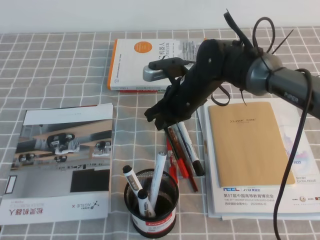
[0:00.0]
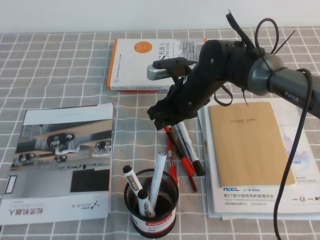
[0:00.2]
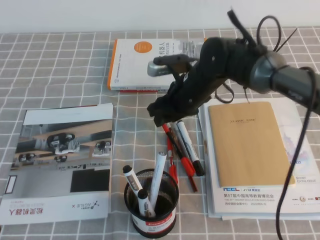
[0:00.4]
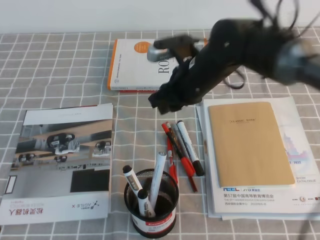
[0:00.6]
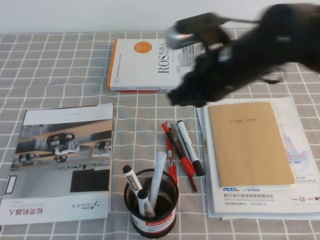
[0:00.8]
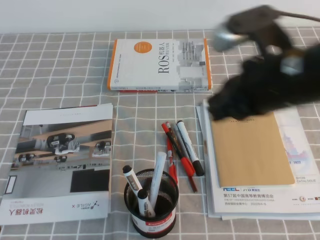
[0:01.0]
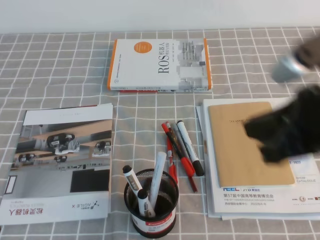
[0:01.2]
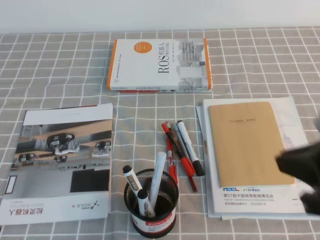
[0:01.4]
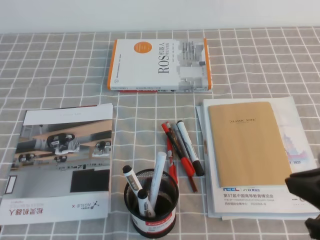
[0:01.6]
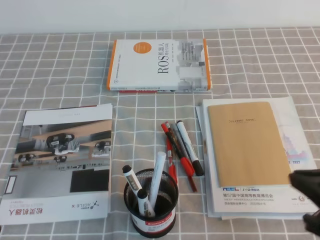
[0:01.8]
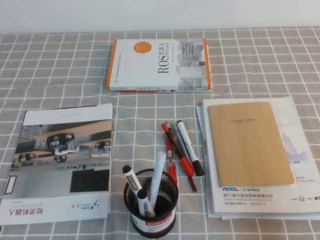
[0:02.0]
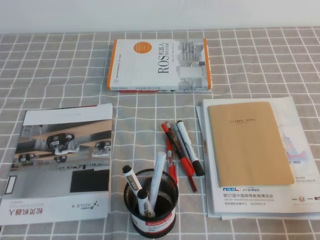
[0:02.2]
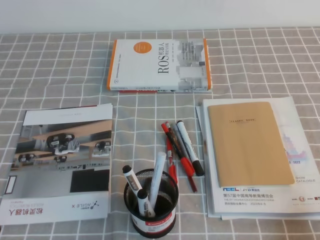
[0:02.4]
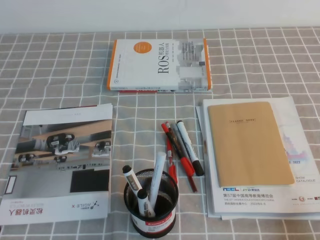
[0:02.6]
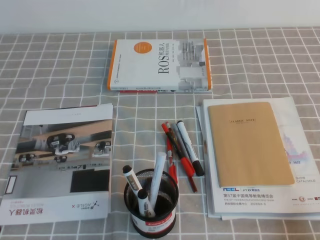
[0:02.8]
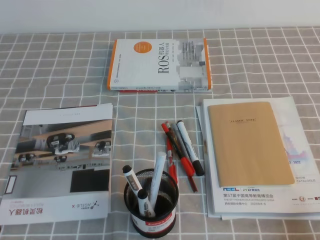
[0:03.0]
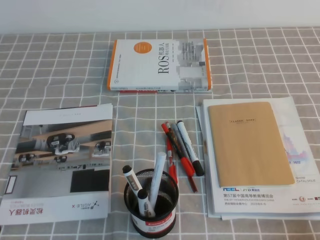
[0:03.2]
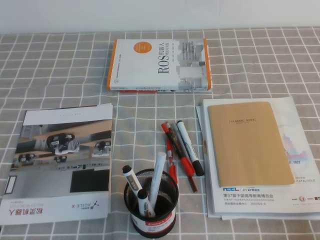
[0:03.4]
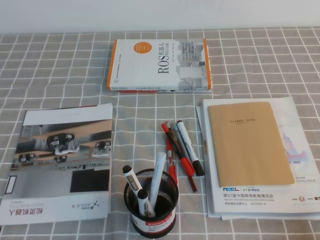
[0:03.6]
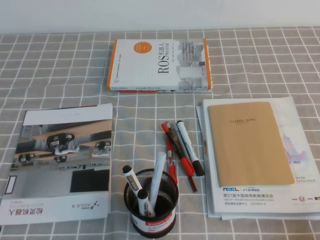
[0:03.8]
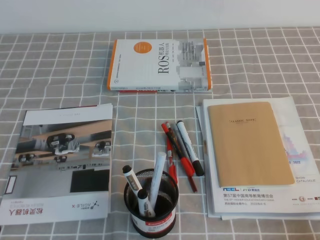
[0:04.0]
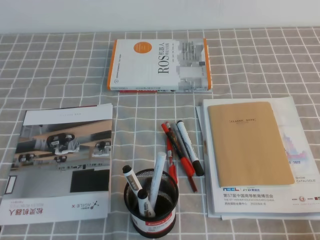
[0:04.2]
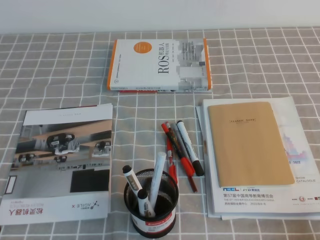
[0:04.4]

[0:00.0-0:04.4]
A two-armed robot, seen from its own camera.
Step, 0:00.0 to 0:04.4: Pick up the pen from the pen holder.
0:00.0 to 0:01.4: The right gripper is displaced backward, to the right and upward by some 35 cm, and opens and closes again.
0:01.4 to 0:03.0: The right gripper heads downward, to the right and backward, covering approximately 20 cm.

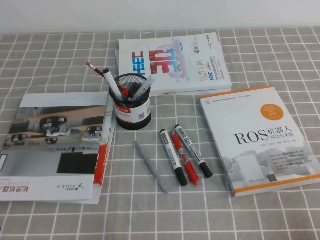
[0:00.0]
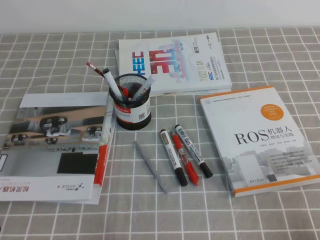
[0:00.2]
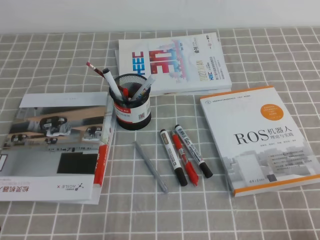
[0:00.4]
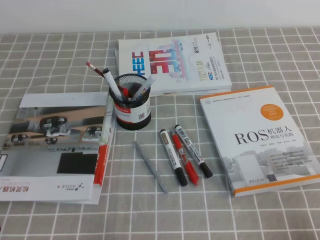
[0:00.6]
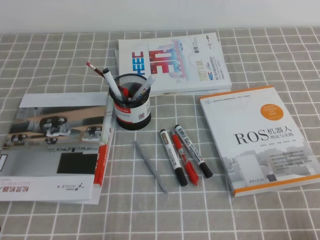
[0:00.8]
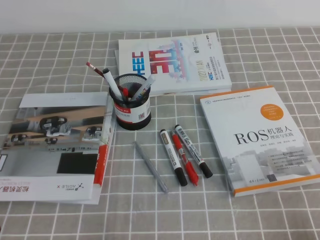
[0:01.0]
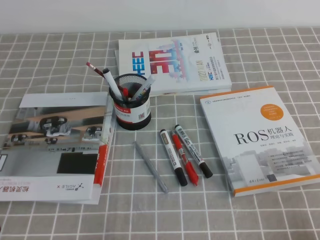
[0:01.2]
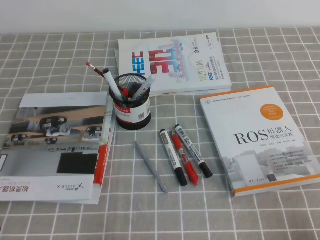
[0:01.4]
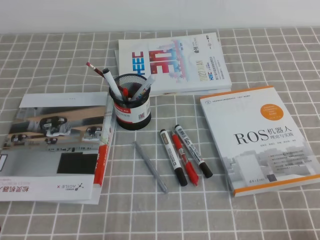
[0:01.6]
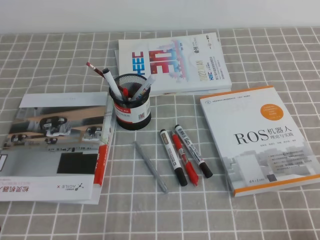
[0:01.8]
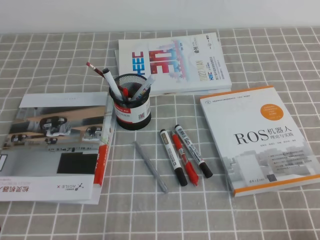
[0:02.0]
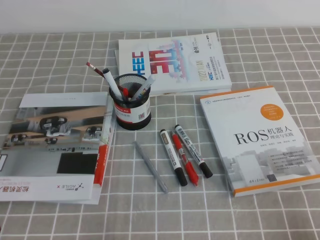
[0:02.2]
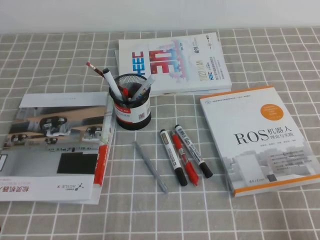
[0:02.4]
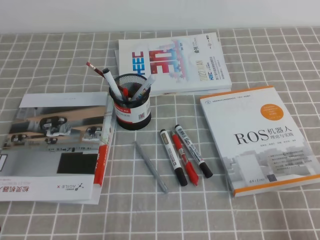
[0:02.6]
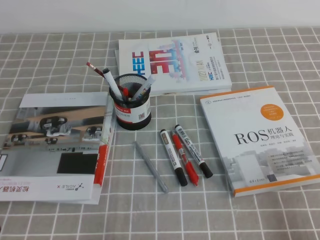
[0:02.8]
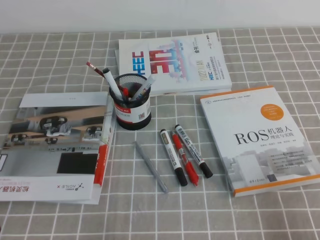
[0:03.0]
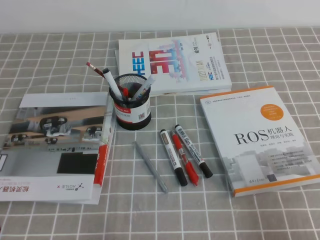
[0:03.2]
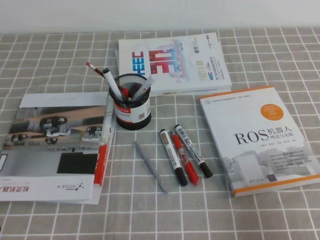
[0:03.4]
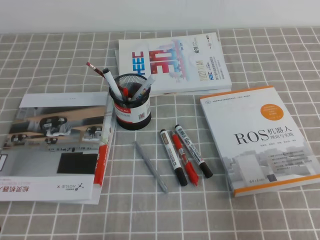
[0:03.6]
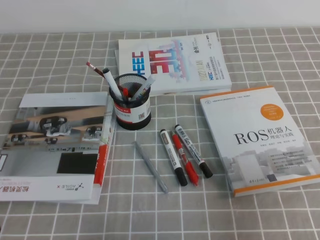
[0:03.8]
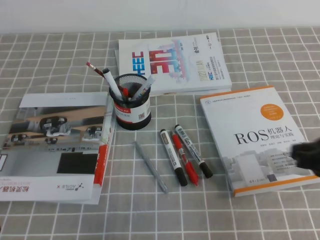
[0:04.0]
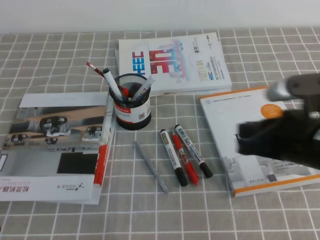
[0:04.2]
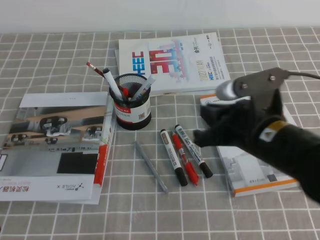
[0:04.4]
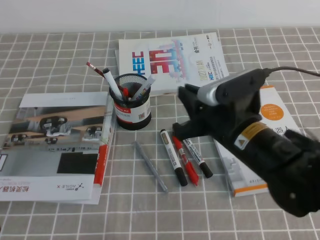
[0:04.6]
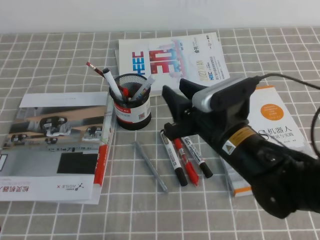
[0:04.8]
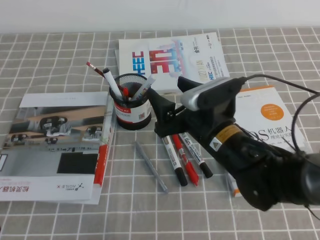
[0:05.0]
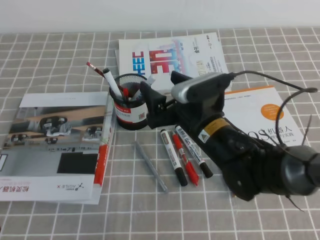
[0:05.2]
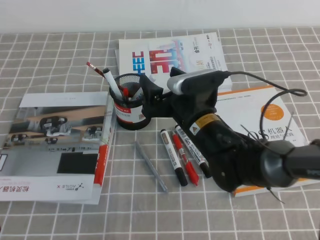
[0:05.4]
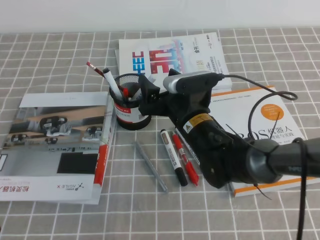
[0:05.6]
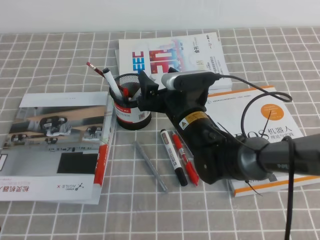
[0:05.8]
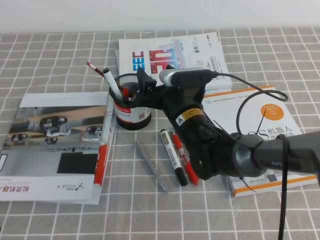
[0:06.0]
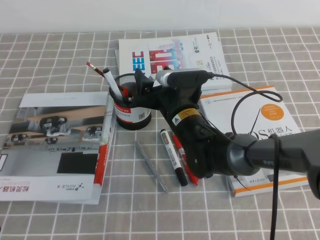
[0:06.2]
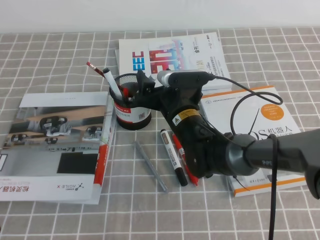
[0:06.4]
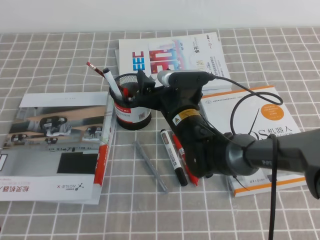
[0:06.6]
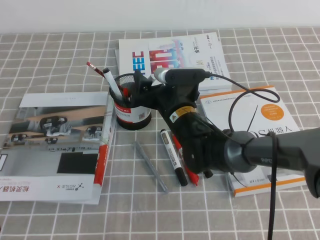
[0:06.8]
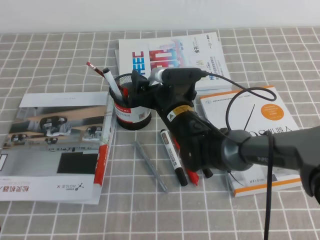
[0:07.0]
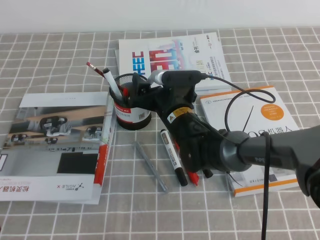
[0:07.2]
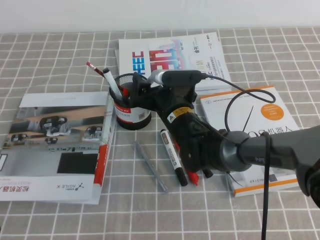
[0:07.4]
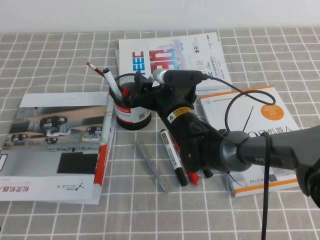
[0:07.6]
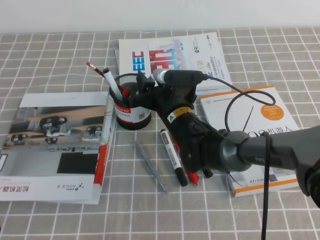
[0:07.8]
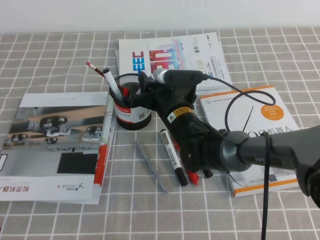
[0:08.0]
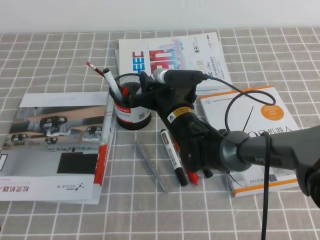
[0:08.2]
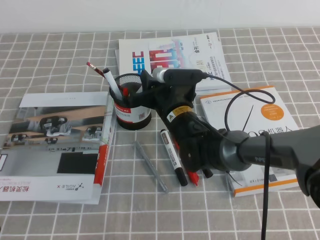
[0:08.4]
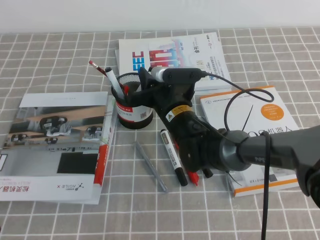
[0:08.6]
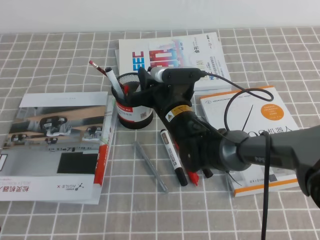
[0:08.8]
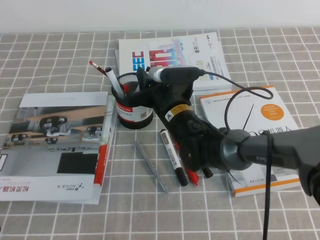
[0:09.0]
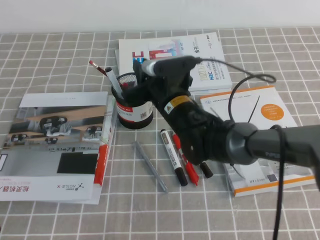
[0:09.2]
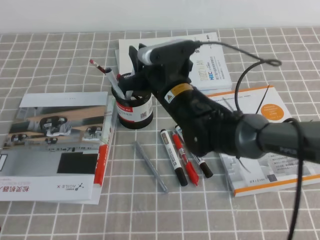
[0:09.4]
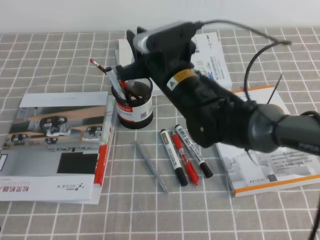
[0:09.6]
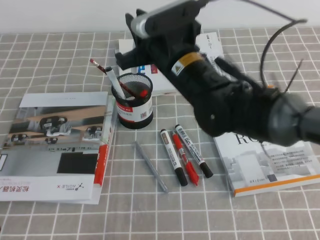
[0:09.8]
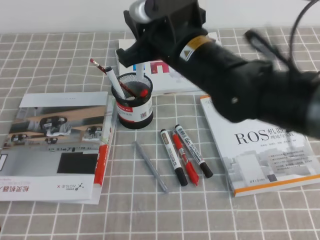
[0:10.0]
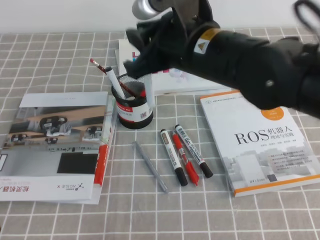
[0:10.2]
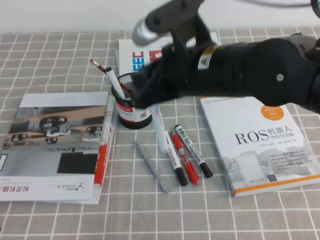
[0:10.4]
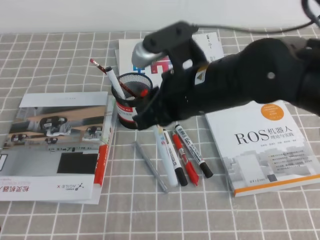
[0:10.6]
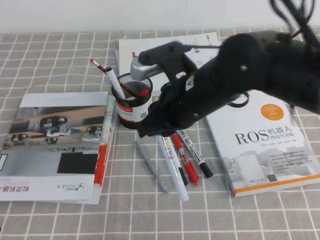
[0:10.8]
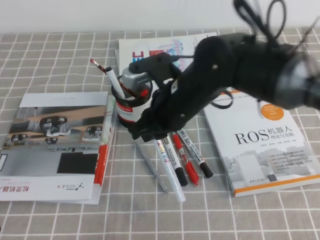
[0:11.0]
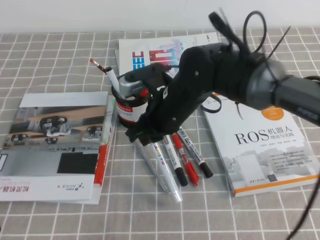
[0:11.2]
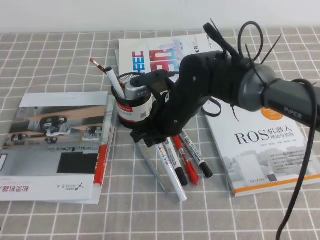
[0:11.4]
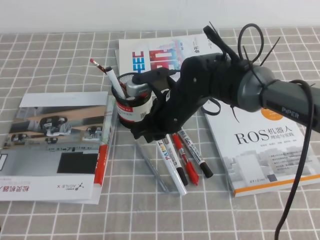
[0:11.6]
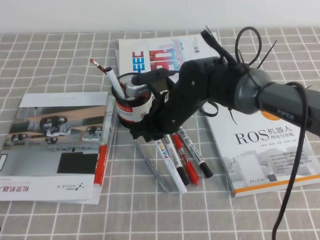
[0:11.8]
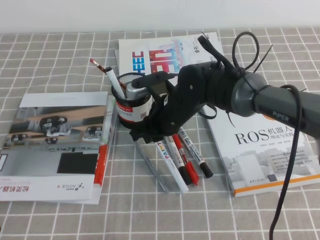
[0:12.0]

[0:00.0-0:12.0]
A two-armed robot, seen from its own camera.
0:00.0 to 0:01.6: Both grippers stay put.
0:03.0 to 0:04.4: The right gripper goes about 25 cm forward and to the left.
0:04.4 to 0:06.0: The right gripper heads to the left, forward and downward, covering approximately 20 cm, and opens its fingers.
0:06.0 to 0:07.6: The grippers stay close to where they were, moving slightly.
0:07.6 to 0:09.0: The right gripper closes its fingers.
0:09.0 to 0:10.4: The right gripper shifts roughly 20 cm upward and backward.
0:10.4 to 0:12.0: The right gripper moves downward and forward, approximately 15 cm.

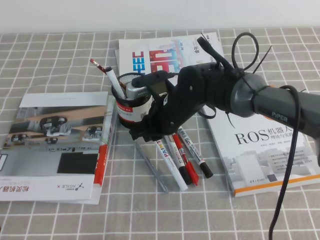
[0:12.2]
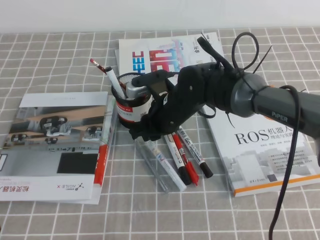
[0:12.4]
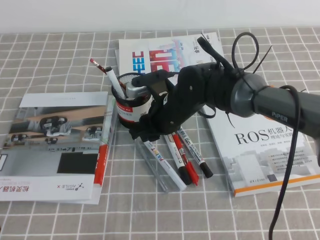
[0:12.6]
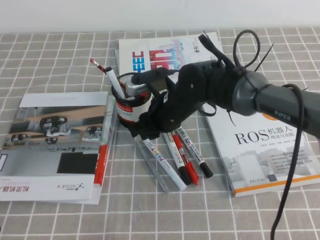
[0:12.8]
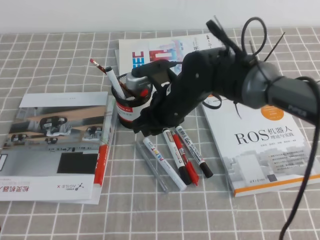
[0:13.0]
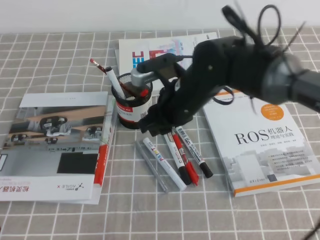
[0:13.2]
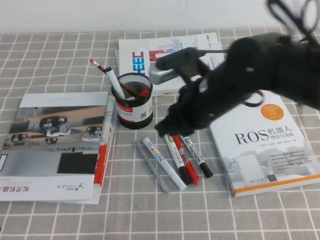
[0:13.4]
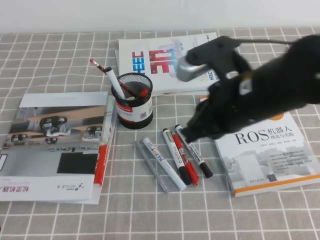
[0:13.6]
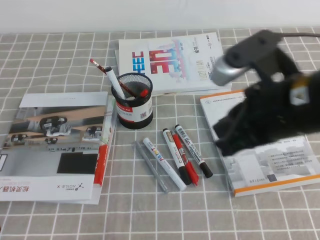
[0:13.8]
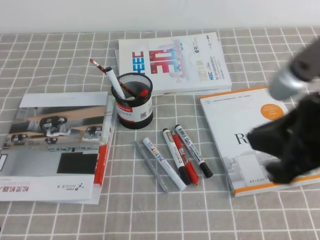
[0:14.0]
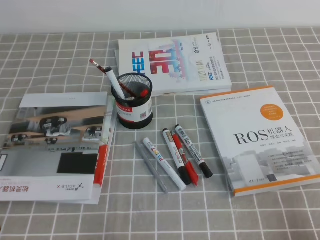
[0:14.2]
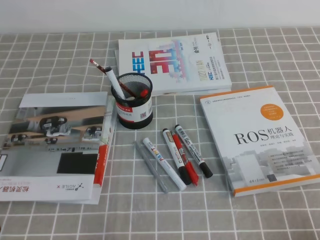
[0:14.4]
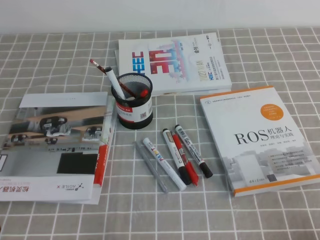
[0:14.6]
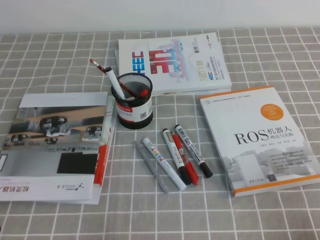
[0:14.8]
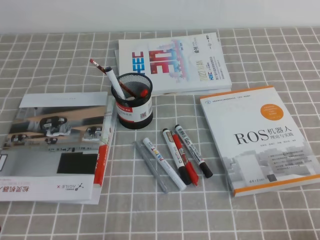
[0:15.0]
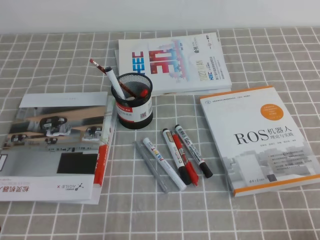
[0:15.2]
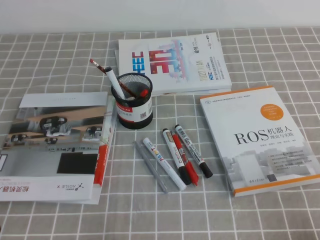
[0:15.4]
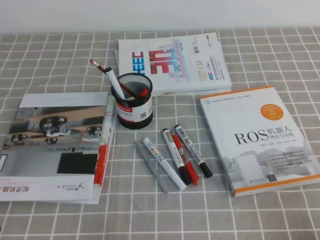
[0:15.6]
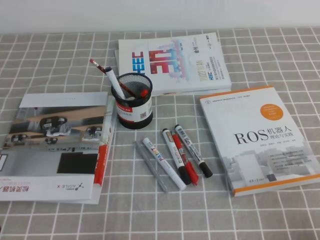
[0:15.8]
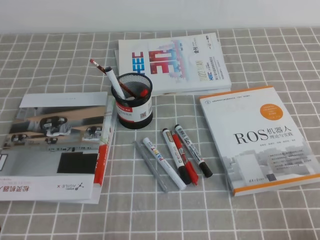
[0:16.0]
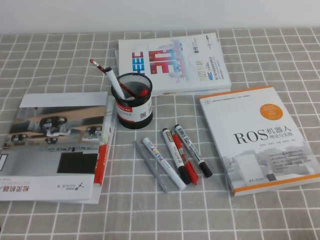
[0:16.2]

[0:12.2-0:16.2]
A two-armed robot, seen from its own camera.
Step, 0:12.2 to 0:16.2: Pick up the pen from the pen holder.
0:12.2 to 0:13.6: The right gripper shifts some 20 cm upward, backward and to the right.
0:13.6 to 0:14.8: The right gripper goes some 35 cm to the right, backward and downward.
0:14.8 to 0:16.2: The two grippers keep their place.
